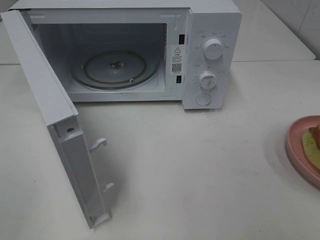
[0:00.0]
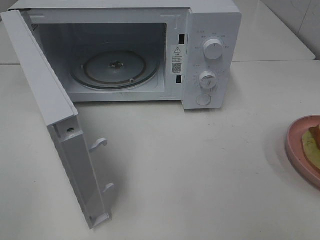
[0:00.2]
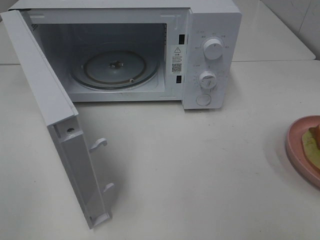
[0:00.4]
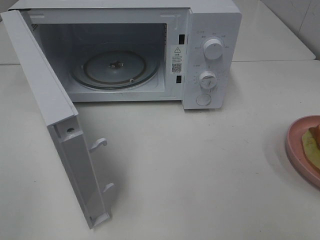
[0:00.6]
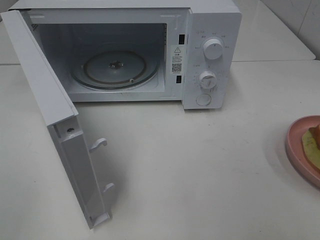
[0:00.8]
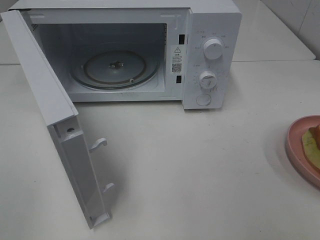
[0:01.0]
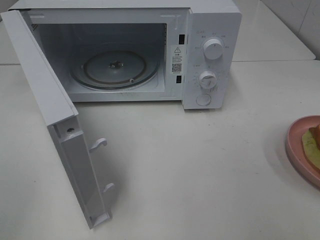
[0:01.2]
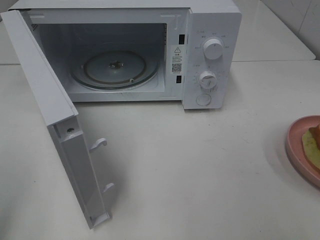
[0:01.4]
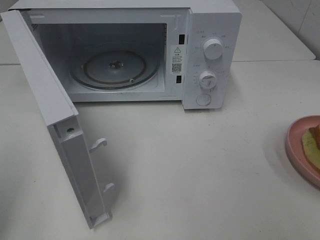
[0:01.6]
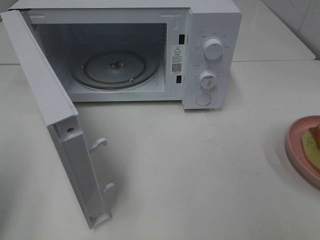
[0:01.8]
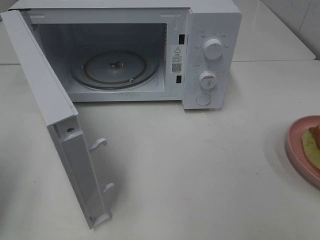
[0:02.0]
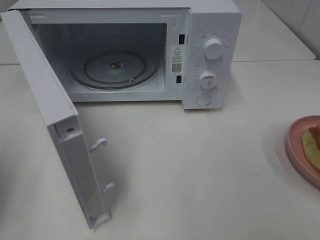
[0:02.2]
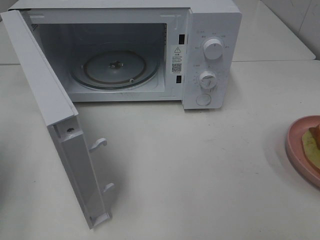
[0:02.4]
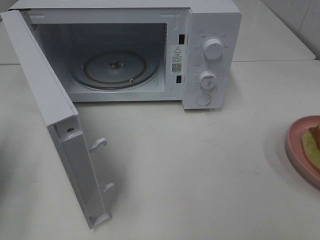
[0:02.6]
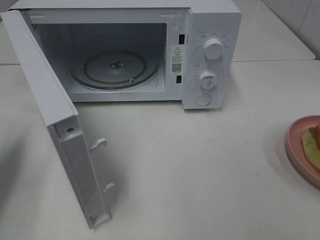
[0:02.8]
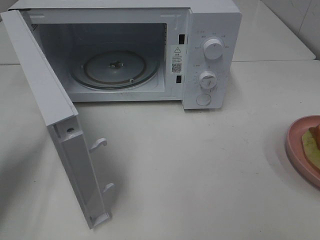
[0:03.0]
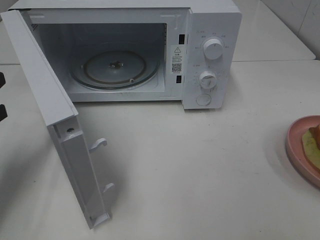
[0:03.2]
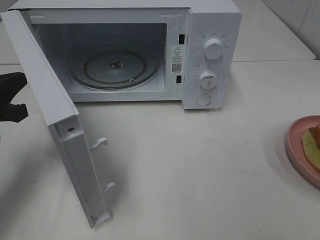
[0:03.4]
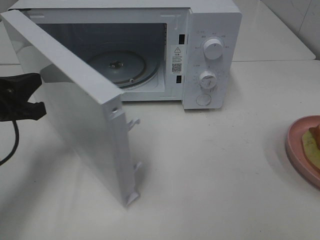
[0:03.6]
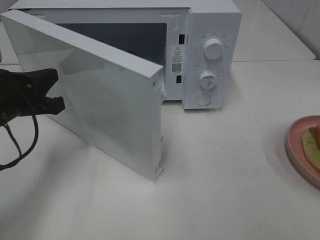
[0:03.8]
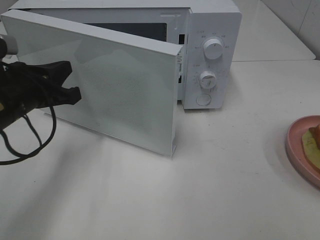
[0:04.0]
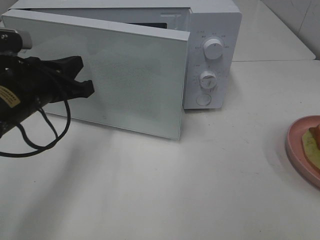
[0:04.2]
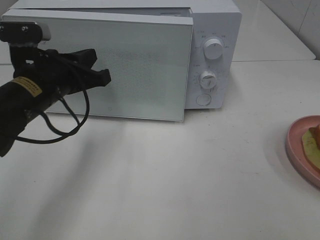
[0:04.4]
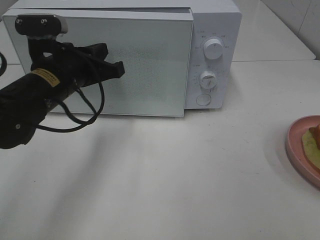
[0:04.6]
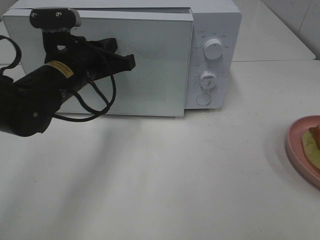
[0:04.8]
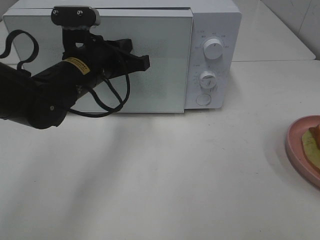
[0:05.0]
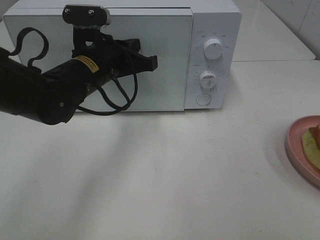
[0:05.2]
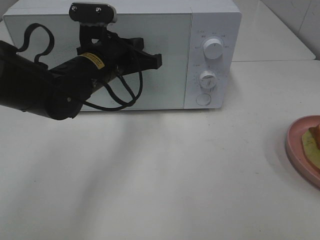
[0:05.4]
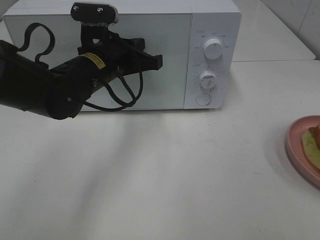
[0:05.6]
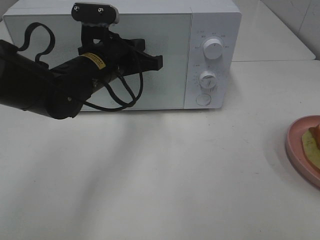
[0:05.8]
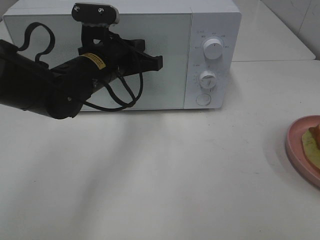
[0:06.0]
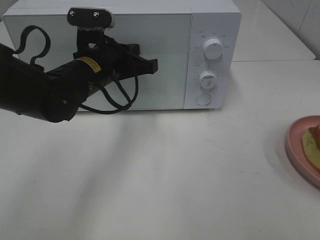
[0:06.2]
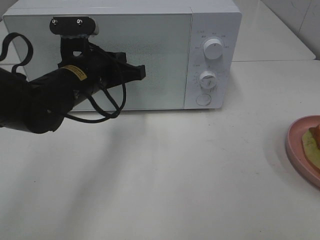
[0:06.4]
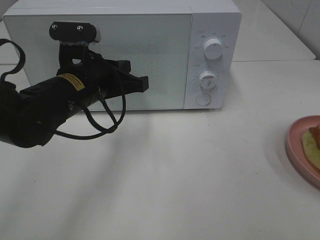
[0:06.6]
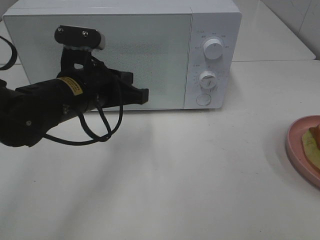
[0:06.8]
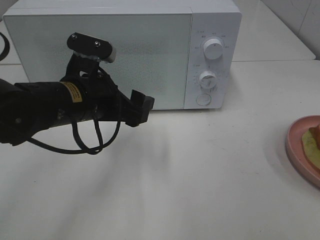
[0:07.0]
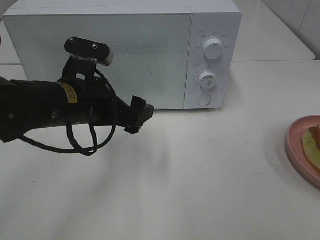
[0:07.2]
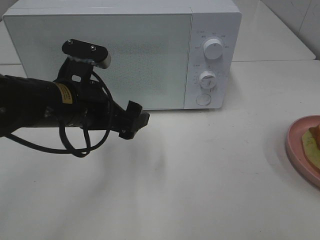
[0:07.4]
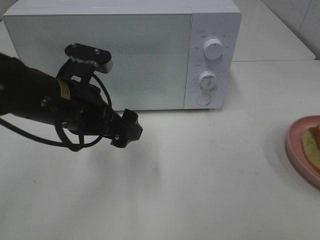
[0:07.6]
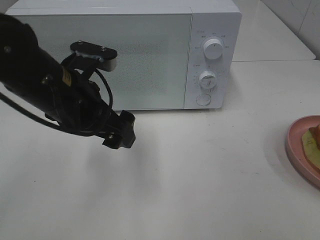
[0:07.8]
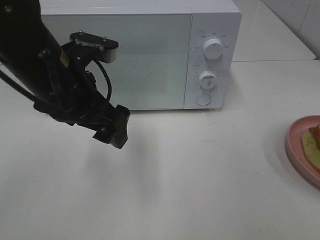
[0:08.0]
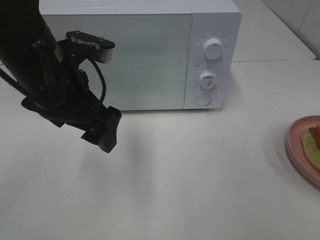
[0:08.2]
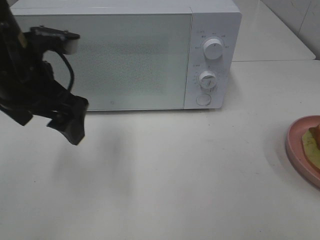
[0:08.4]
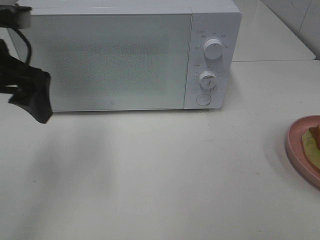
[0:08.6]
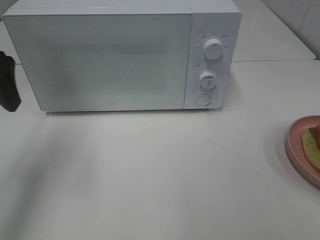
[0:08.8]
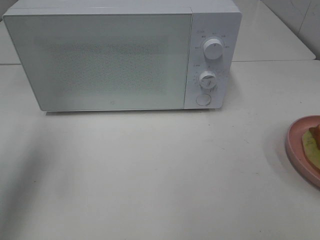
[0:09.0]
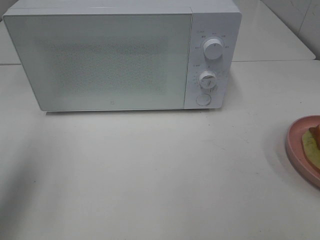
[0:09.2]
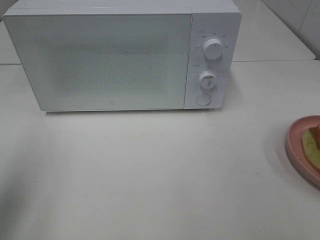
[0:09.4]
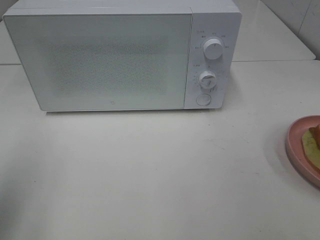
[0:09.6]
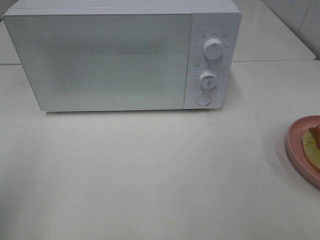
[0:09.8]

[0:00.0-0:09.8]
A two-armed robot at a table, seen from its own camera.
Task of the whole recording: Heat Sandwich.
Step, 0:00.0 to 0:06.0: Left hand: close the microwave door.
0:01.4 to 0:02.8: The left gripper travels forward and downward by some 20 cm, and closes.
0:02.8 to 0:04.2: The left gripper moves to the right, approximately 15 cm.
0:04.2 to 0:05.6: The left gripper goes approximately 10 cm to the right and forward.
0:05.6 to 0:07.0: The left gripper shifts approximately 10 cm backward, and opens.
0:07.0 to 0:08.4: The left gripper is displaced upward and to the left by about 10 cm.
0:08.4 to 0:09.8: The left gripper travels backward and to the left by some 20 cm.

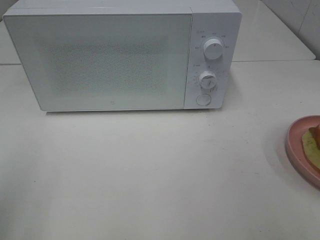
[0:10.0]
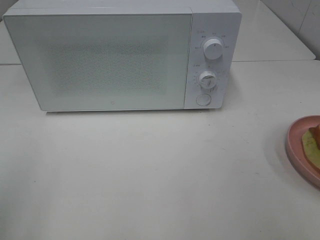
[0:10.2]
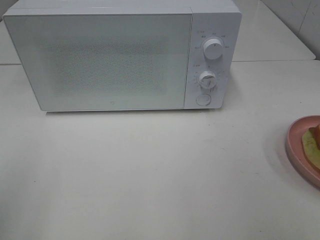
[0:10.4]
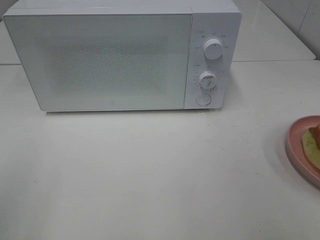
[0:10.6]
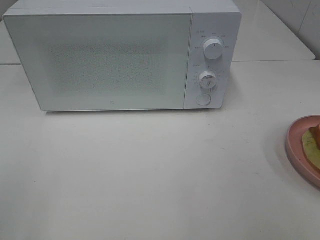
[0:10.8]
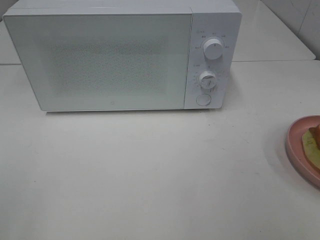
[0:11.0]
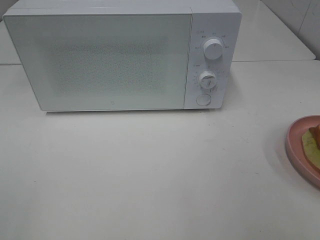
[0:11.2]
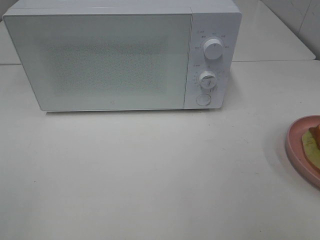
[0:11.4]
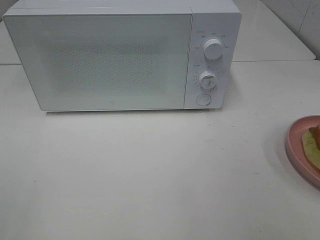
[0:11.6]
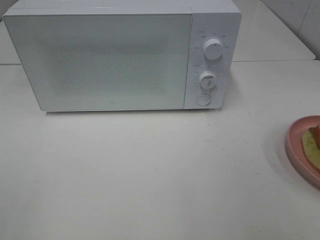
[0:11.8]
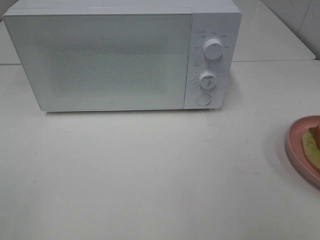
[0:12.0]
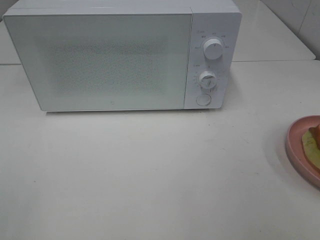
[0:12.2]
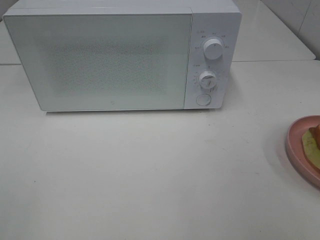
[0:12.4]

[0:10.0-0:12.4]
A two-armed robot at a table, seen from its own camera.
Task of the whole recording: Heat Sandwich.
0:11.2 to 0:12.4: The two grippers keep their place.

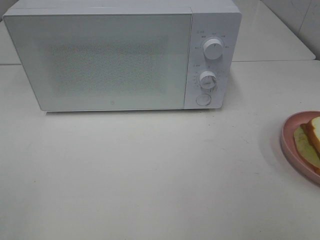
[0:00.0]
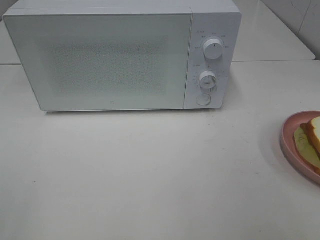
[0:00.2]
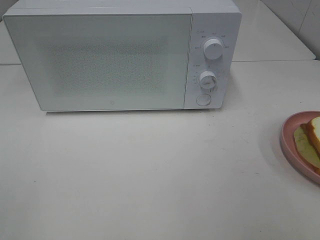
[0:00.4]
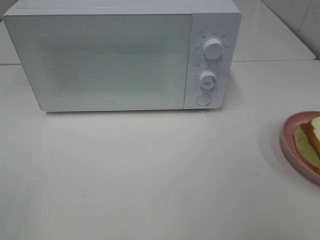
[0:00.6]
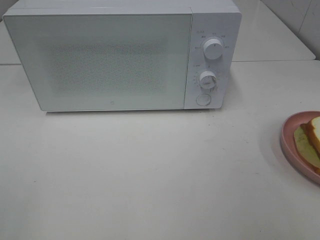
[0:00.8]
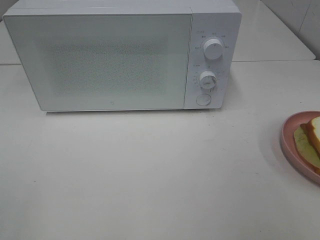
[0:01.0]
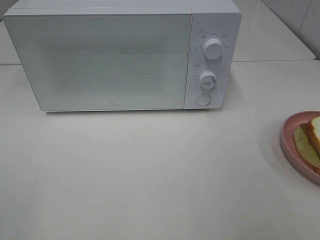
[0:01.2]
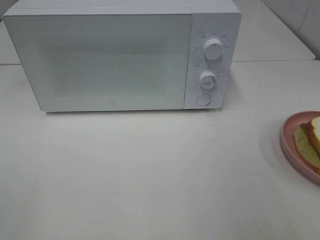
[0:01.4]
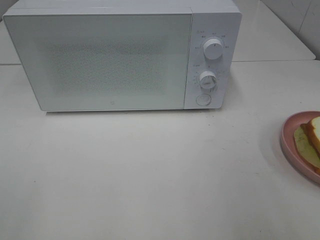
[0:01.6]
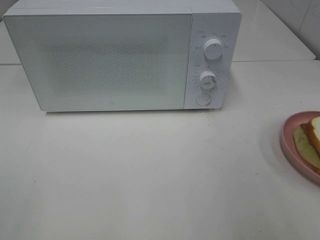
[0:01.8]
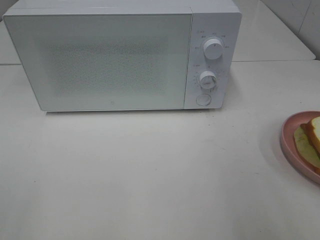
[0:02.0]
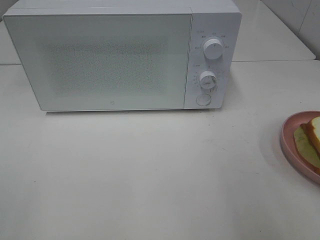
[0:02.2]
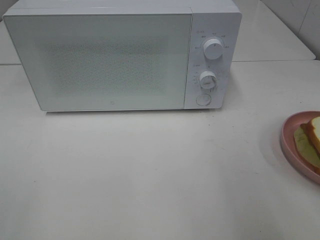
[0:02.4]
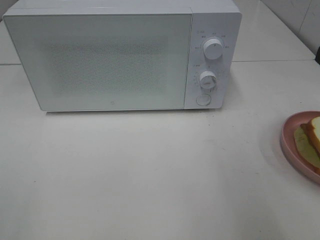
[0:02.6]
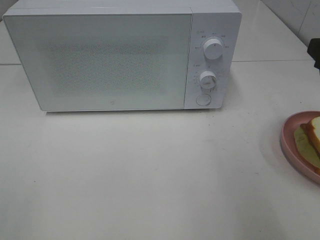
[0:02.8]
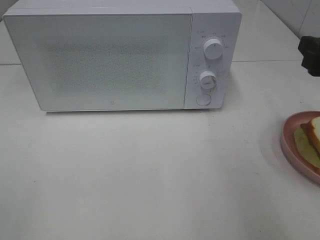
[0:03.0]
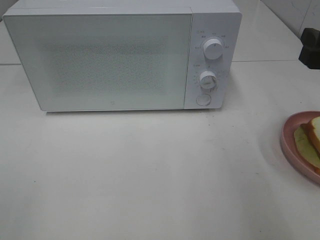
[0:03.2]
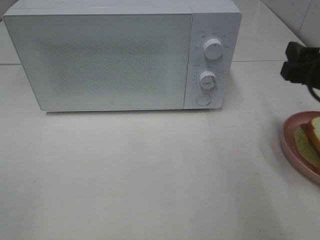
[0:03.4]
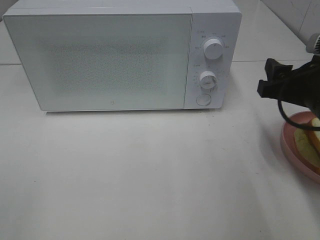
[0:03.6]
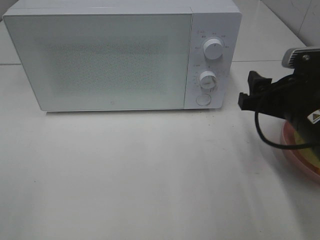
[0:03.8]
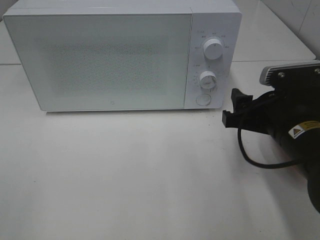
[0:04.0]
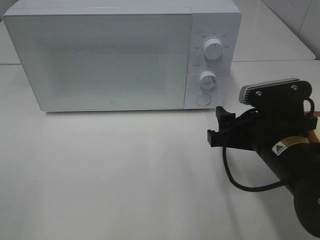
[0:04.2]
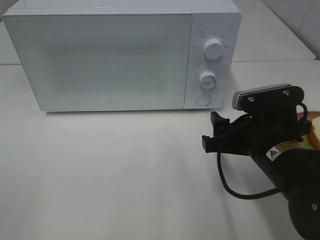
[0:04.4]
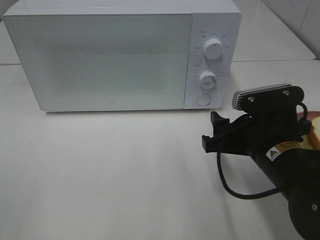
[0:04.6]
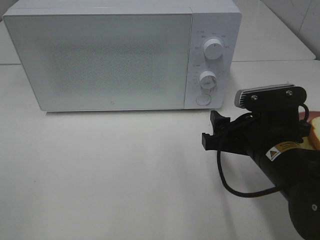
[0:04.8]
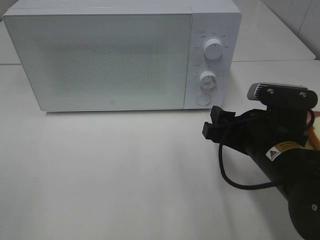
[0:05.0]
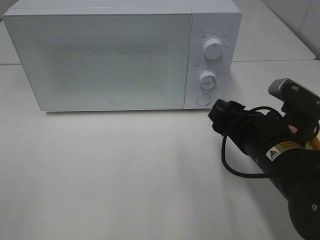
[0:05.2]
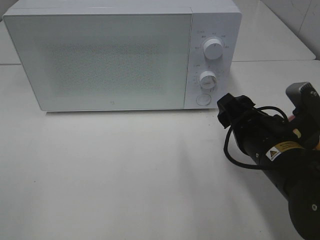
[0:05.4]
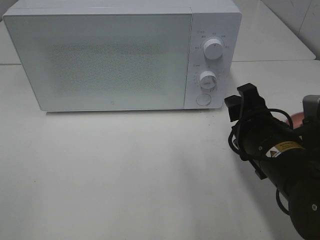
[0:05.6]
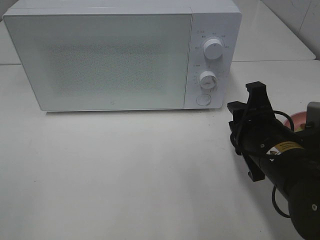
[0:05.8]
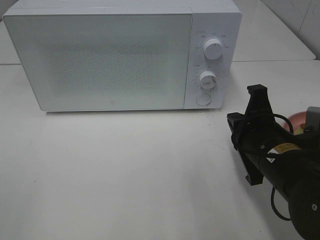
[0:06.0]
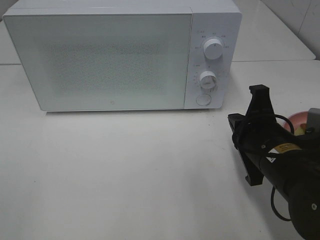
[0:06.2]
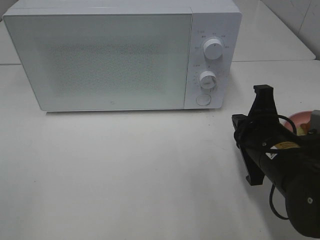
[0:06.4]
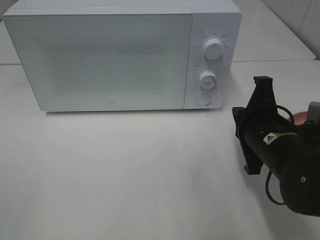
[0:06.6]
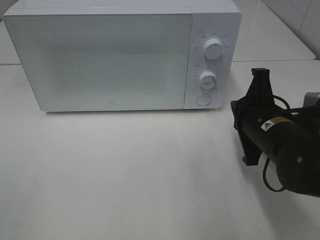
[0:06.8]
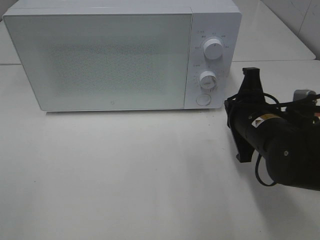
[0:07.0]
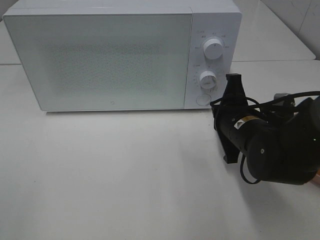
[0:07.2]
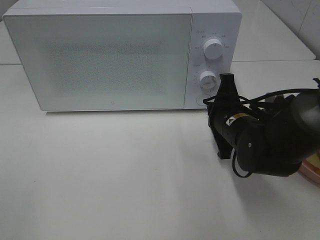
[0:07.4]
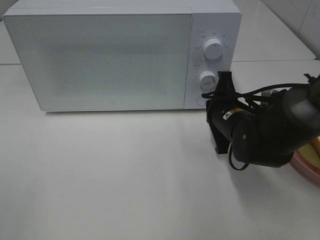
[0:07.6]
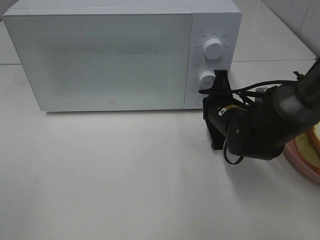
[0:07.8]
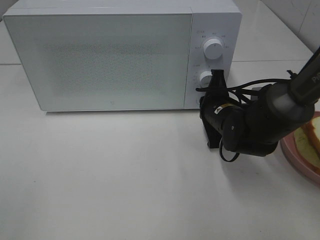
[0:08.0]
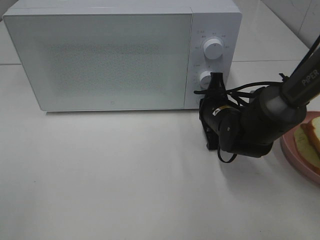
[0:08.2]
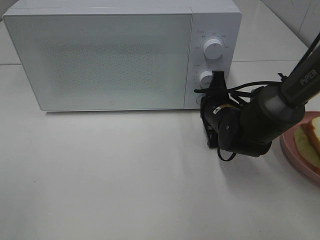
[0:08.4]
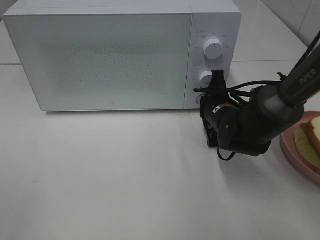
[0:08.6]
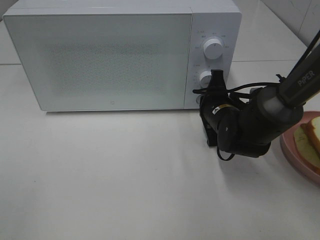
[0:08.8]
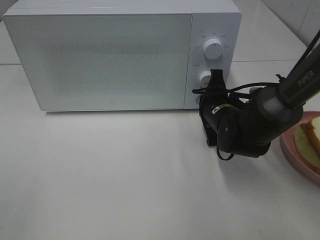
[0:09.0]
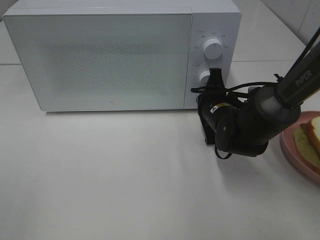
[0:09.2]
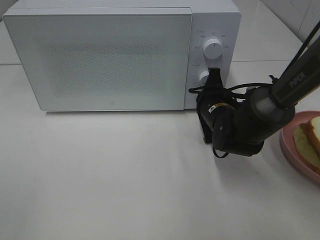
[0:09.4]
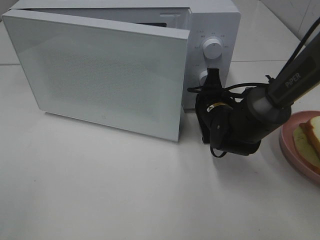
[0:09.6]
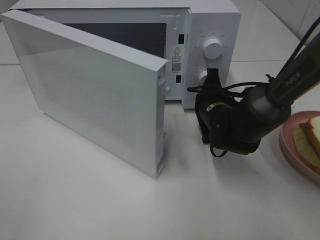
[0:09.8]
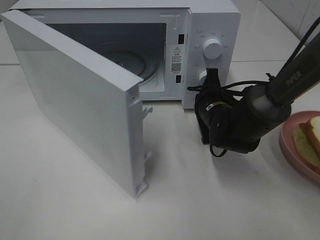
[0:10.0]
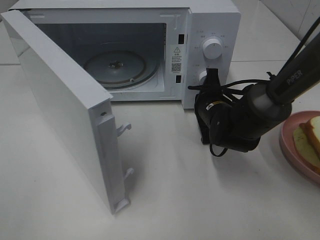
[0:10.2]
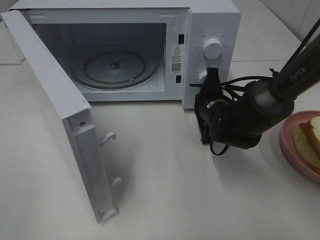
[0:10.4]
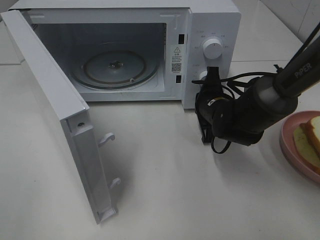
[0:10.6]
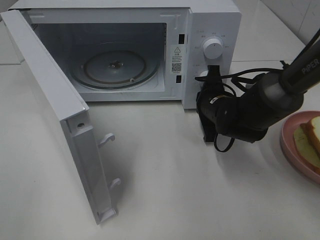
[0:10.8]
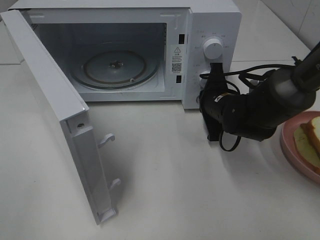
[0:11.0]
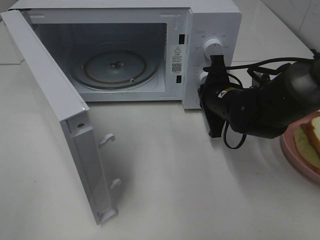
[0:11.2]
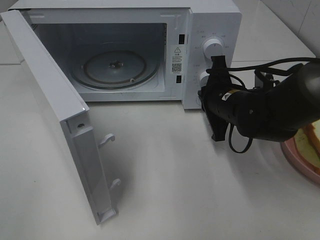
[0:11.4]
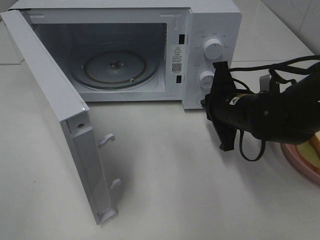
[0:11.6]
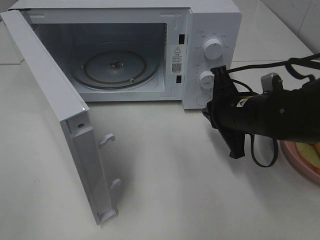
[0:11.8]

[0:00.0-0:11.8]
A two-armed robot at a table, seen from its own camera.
Task of the whole recording: Heat Sandwich.
Step, 0:00.0 to 0:11.2: Right hand: press the switch.
0:01.4 to 0:03.0: The right gripper heads forward, covering roughly 15 cm.
0:03.0 to 0:04.4: The right gripper shifts roughly 15 cm to the left and downward.
0:04.4 to 0:06.0: The right gripper closes up.
0:06.0 to 0:07.4: The right gripper goes approximately 10 cm forward.
0:07.4 to 0:08.8: The right gripper goes about 5 cm forward.
0:10.4 to 0:11.8: The right gripper travels backward and upward by some 10 cm.
